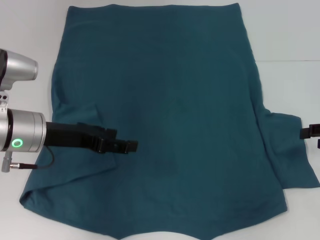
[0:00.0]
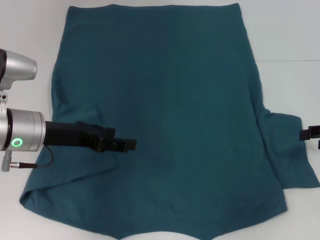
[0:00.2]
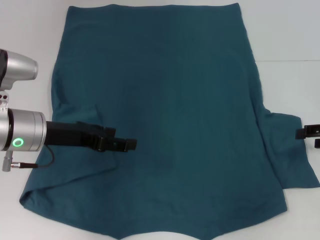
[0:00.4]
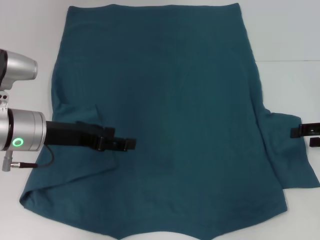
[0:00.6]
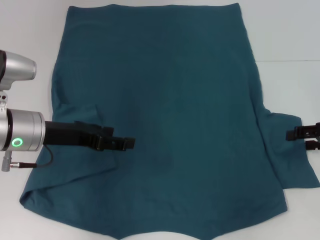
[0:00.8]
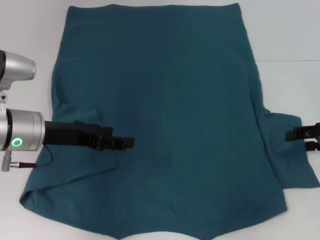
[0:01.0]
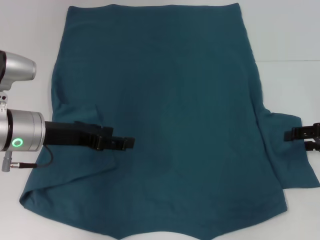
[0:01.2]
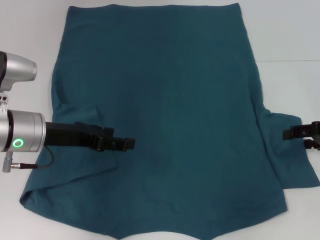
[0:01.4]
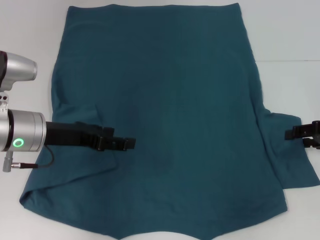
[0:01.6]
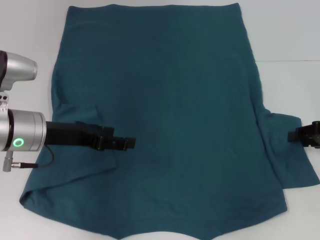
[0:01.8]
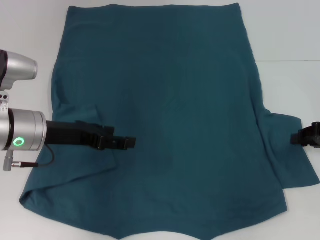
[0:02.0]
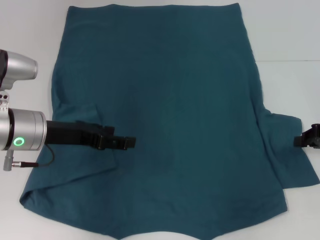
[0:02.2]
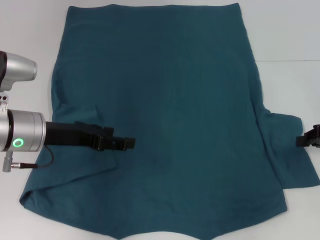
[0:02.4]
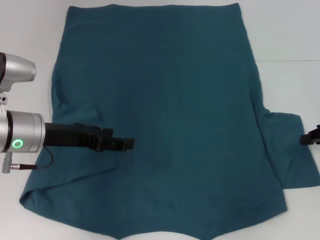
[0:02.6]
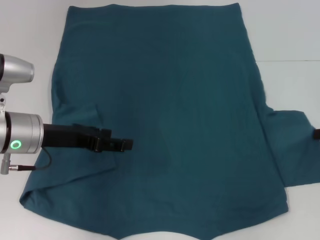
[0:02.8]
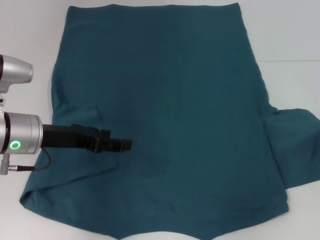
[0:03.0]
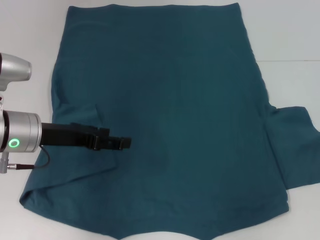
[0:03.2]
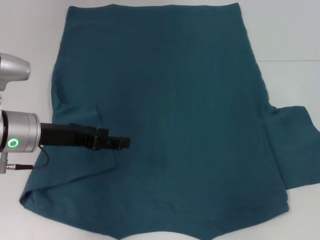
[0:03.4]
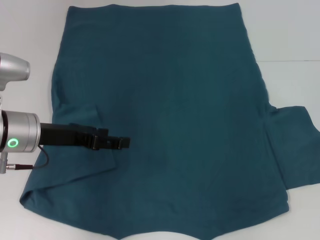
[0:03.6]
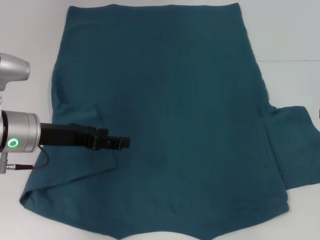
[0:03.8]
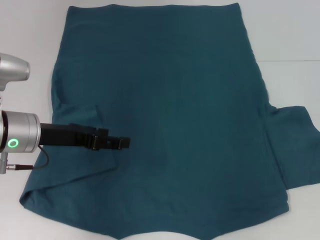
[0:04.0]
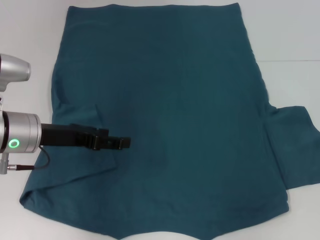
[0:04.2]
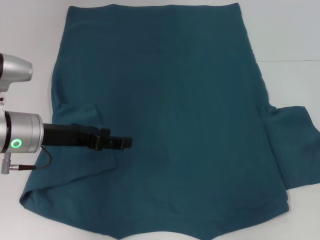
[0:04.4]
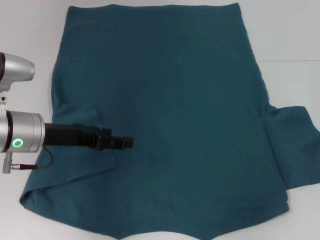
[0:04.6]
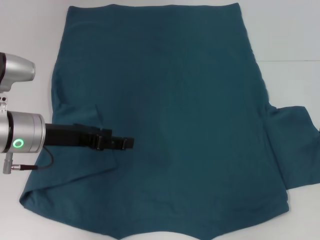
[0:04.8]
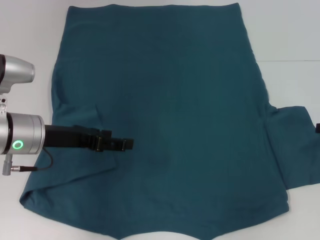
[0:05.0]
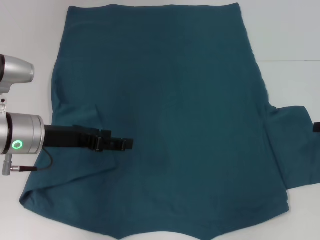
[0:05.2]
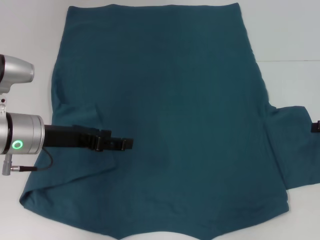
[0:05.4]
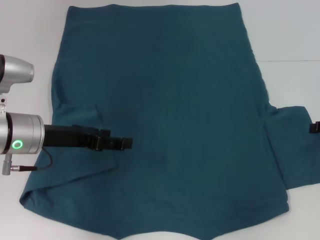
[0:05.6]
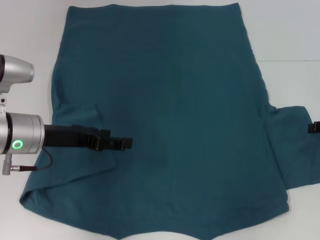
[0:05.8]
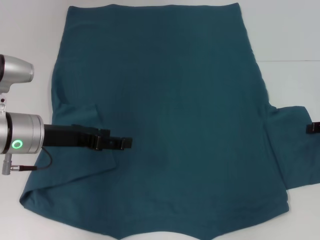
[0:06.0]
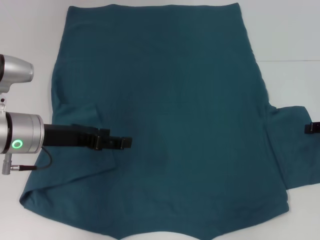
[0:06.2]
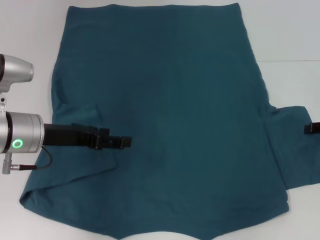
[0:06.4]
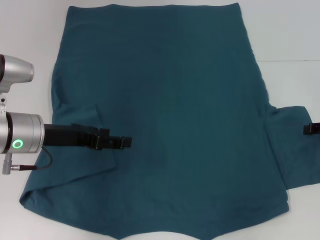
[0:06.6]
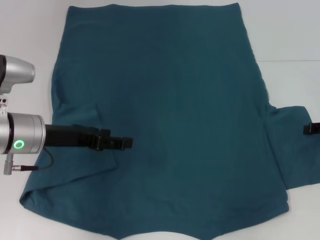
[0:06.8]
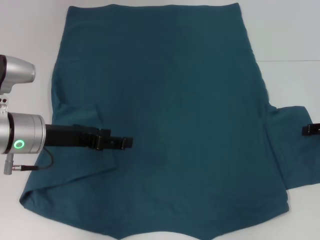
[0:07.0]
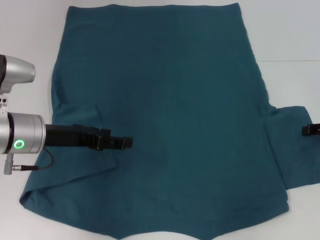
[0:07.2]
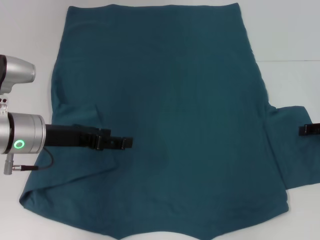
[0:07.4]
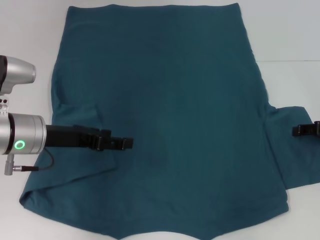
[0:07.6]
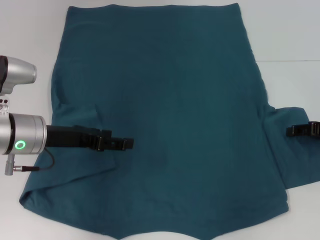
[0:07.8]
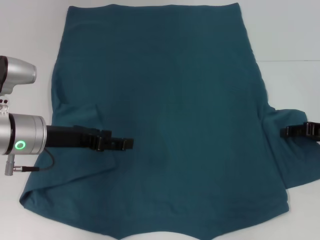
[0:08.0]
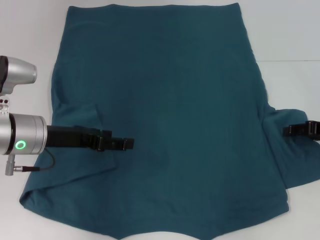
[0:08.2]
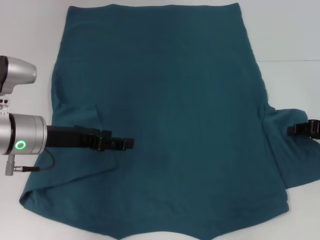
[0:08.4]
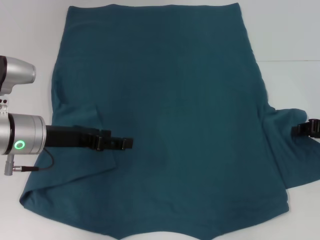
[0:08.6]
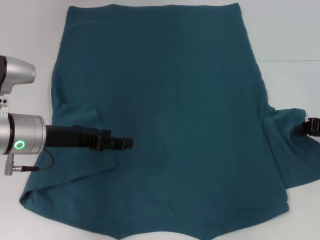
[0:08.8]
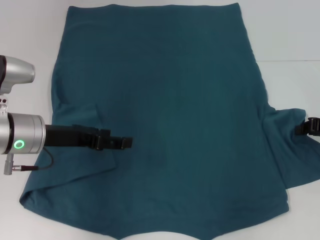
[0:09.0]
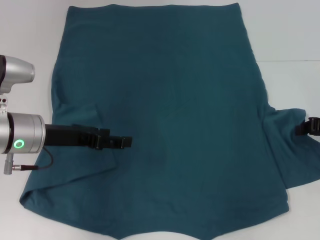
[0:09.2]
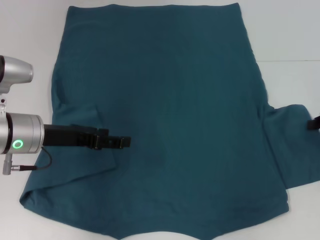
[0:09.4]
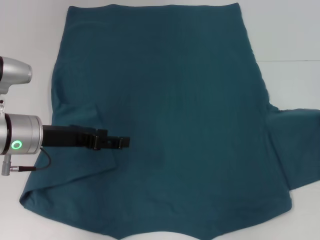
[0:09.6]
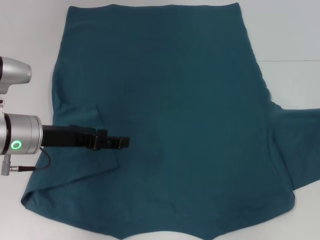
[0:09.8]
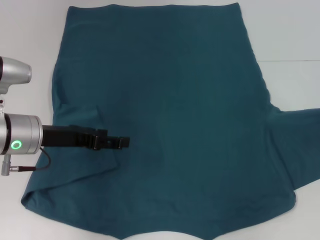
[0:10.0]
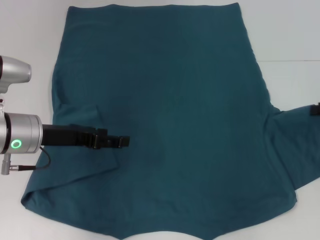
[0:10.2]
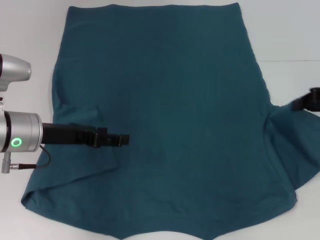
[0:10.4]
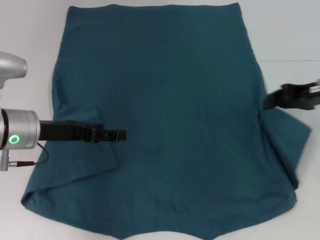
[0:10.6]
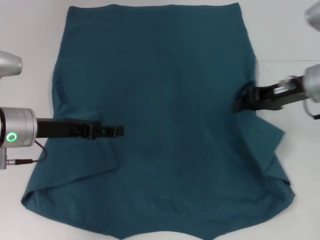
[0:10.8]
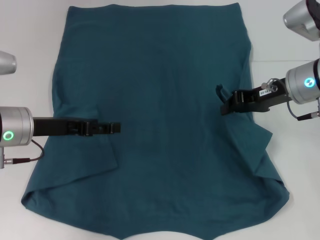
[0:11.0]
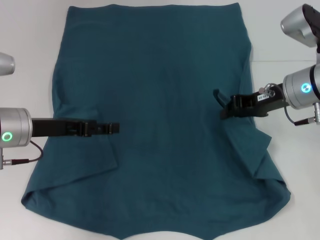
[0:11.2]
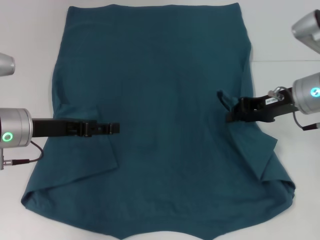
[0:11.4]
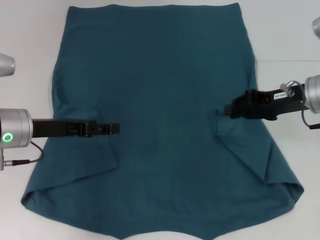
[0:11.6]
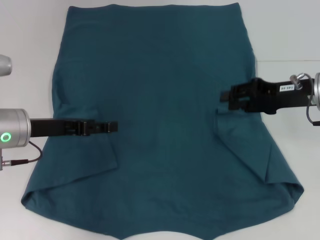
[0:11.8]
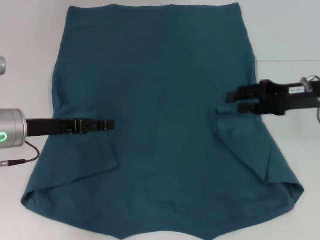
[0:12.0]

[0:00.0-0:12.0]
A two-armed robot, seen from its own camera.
Step, 0:00.0 to 0:11.6: Fold the bottom right sleeve to the right.
0:00.0 to 0:01.6: The grippers move only a little.
0:01.6 to 0:03.0: The right gripper closes.
0:04.4 to 0:06.0: There are only small adjustments of the grippers.
0:06.0 to 0:07.6: The grippers stay close to where they were, moving slightly.
0:09.0 to 0:10.4: The right gripper is displaced upward by about 5 cm.
0:10.4 to 0:12.0: The right gripper moves to the left, about 5 cm, and opens up.

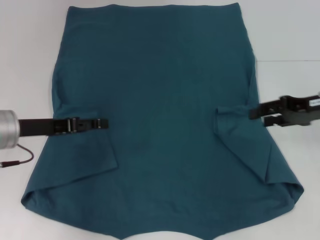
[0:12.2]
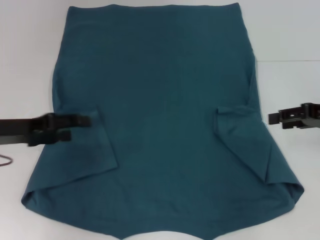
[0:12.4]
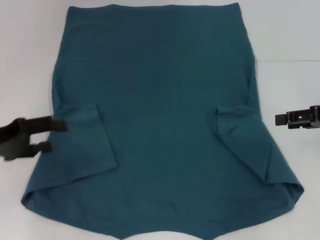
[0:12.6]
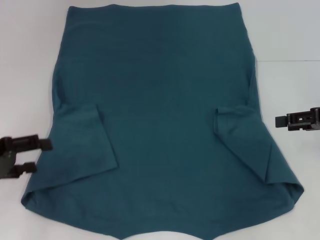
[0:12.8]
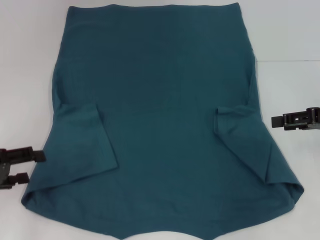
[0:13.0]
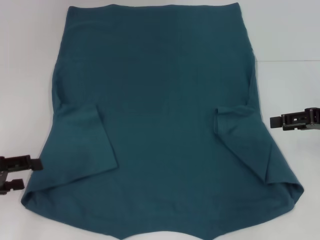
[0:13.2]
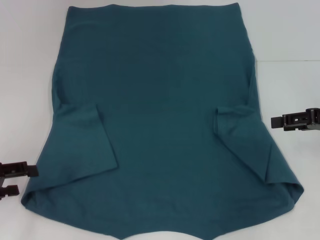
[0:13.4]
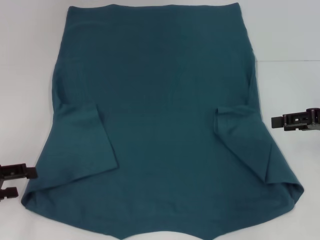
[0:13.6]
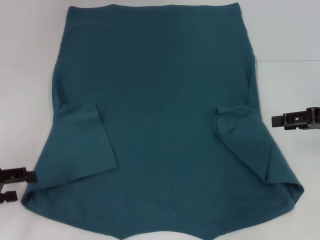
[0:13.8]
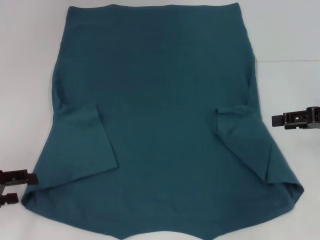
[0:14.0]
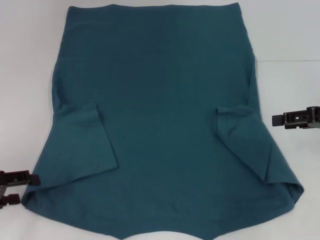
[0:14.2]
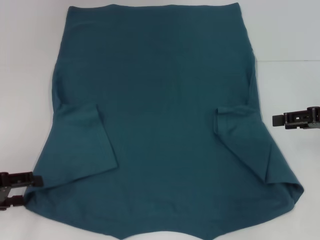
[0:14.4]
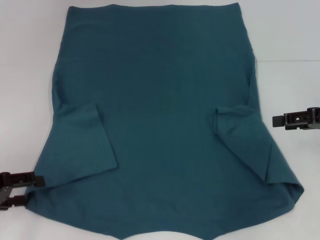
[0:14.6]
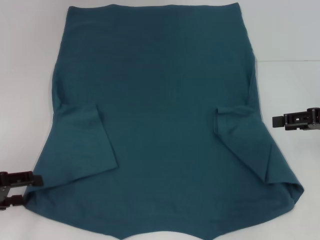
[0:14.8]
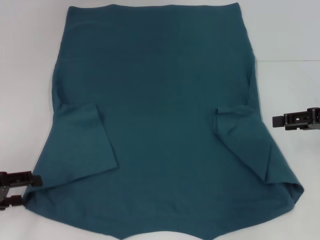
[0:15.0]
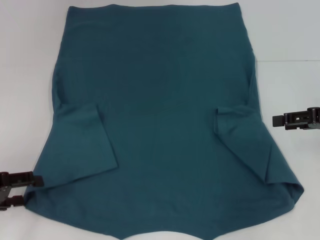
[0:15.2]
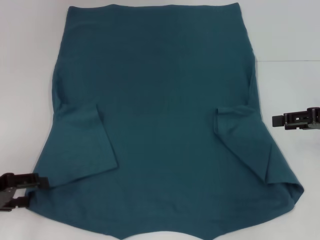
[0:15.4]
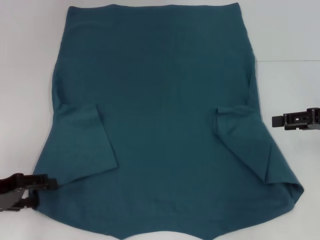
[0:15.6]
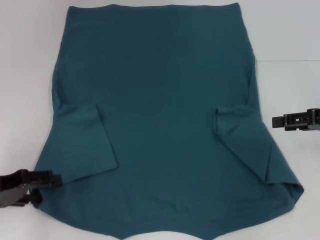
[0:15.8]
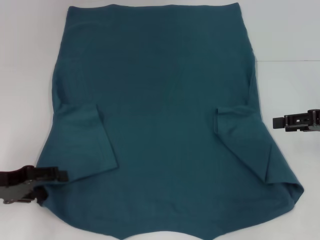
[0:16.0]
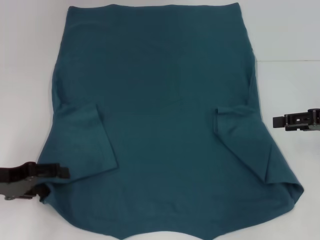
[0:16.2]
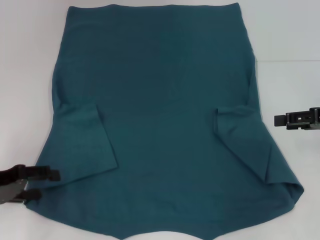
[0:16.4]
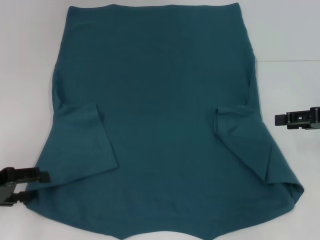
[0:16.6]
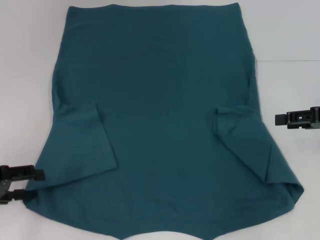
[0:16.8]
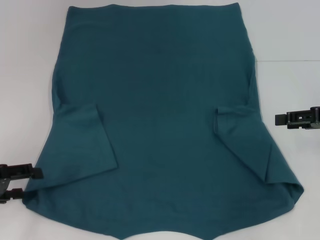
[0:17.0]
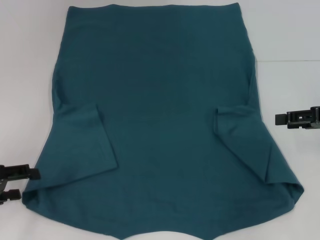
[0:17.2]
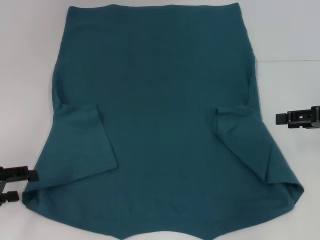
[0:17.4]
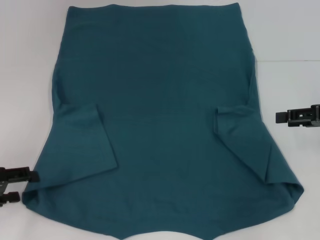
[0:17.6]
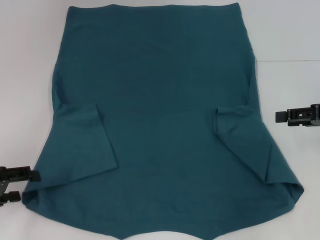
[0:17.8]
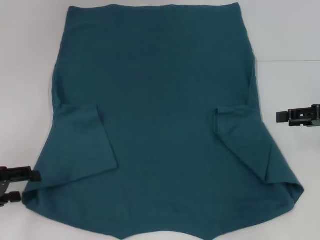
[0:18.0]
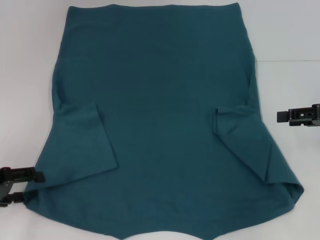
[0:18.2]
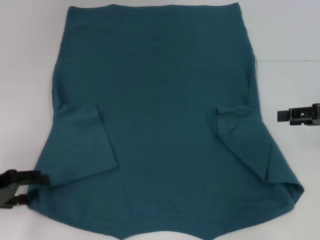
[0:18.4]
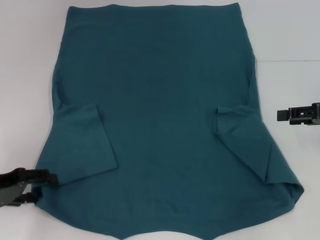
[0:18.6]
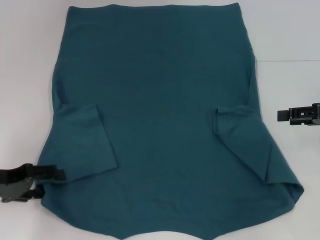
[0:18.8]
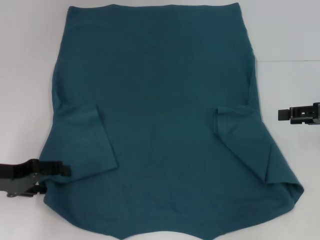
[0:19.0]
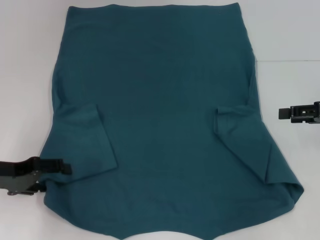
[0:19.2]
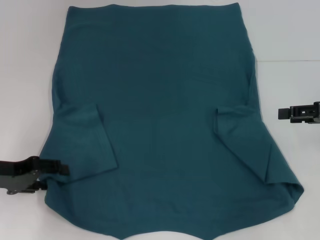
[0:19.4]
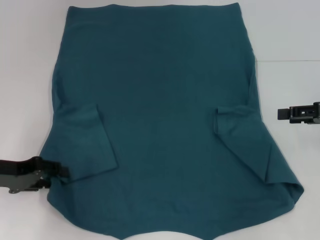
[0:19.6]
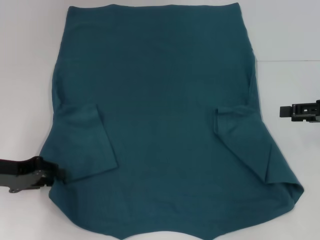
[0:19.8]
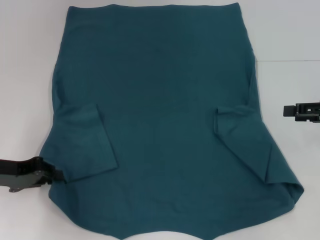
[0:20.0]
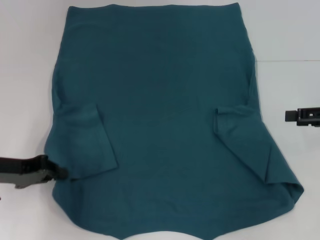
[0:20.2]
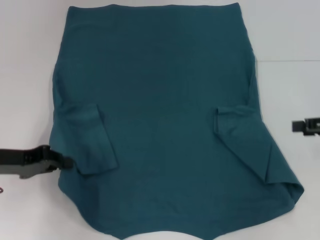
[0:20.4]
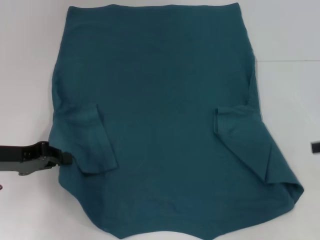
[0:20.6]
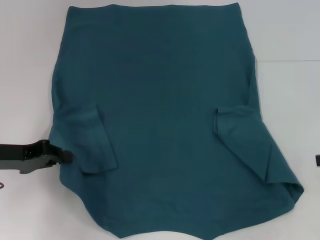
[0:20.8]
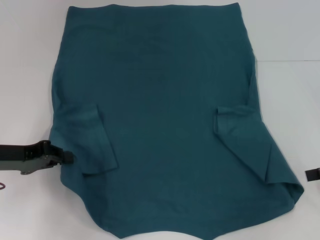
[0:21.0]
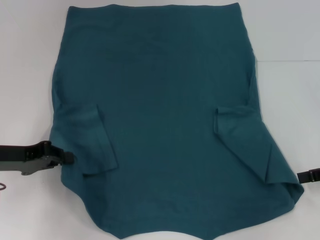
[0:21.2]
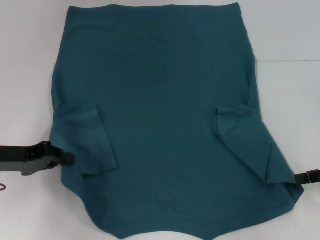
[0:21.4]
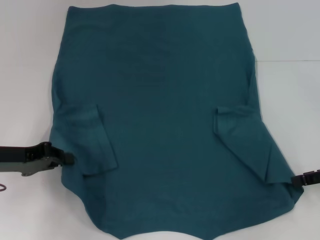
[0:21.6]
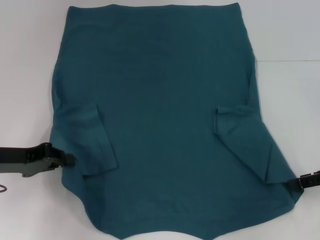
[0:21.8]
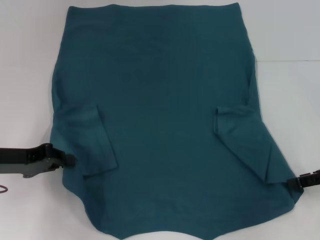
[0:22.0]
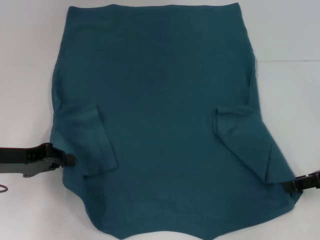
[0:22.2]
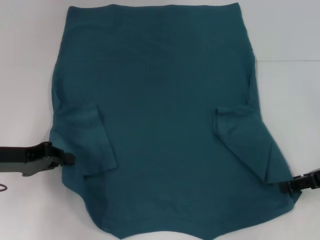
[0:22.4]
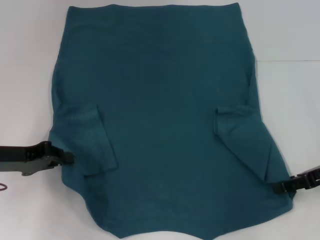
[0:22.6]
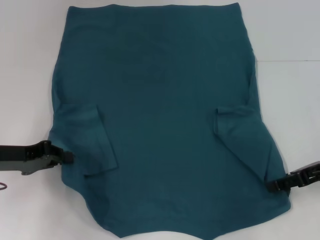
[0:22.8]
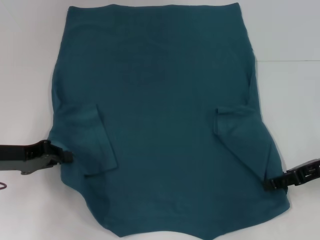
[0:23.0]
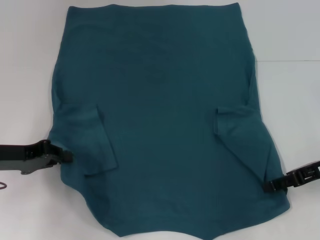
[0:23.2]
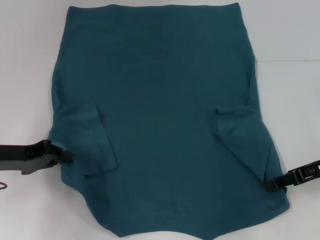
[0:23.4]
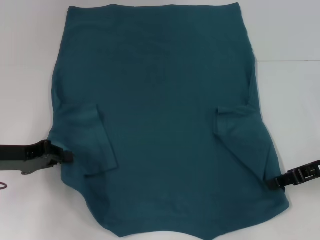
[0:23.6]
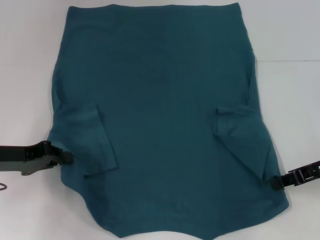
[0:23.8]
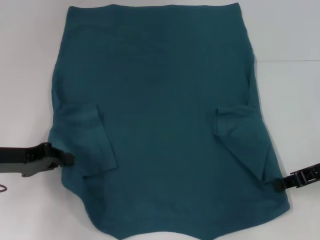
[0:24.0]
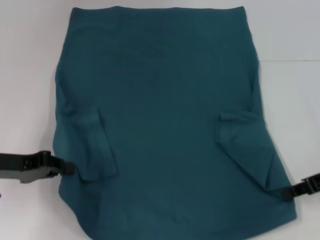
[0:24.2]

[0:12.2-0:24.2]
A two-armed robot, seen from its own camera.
Step, 0:12.2 to 0:20.2: Grab the bottom left corner with your left hand.
Step, 0:20.4 to 0:23.8: Grab the bottom right corner with your right hand.
0:12.2 to 0:13.8: The left gripper travels to the left and backward by roughly 15 cm.
0:13.8 to 0:15.2: Both grippers stay put.
0:15.2 to 0:18.2: The grippers make only small movements.
0:18.2 to 0:19.8: The left gripper ends up about 5 cm from where it was.
0:19.8 to 0:21.2: The left gripper closes.
0:21.2 to 0:22.6: The grippers move only a little.
0:22.6 to 0:24.2: The right gripper closes.
